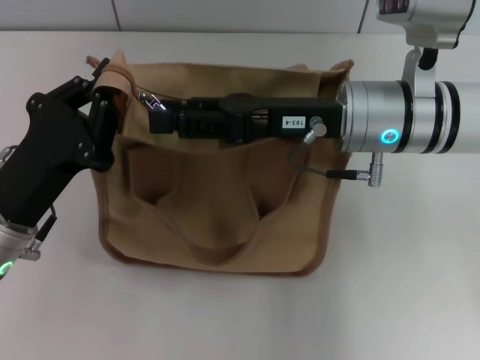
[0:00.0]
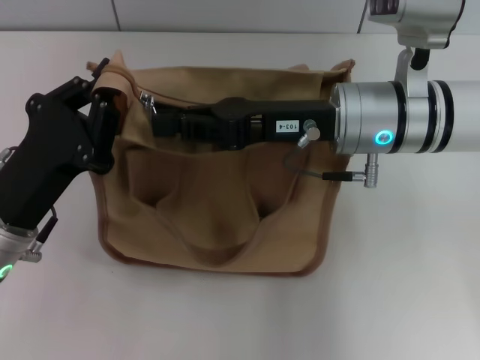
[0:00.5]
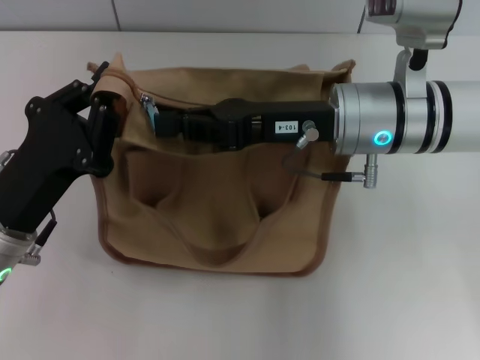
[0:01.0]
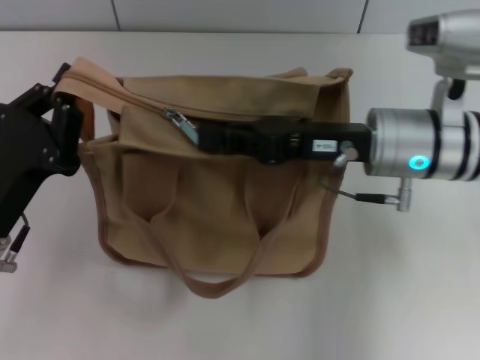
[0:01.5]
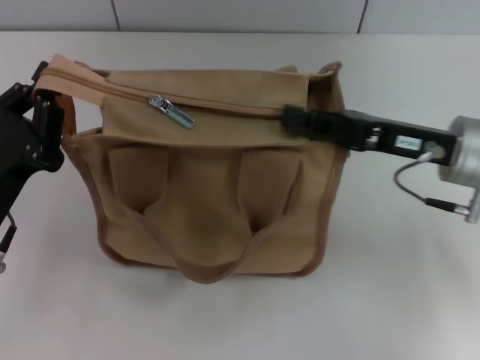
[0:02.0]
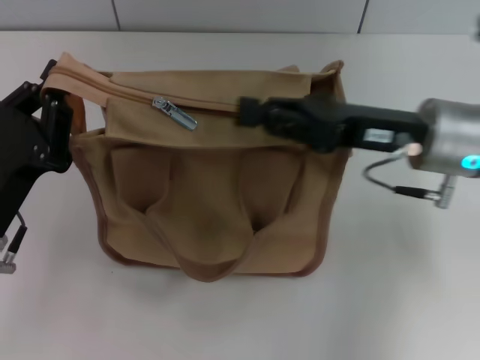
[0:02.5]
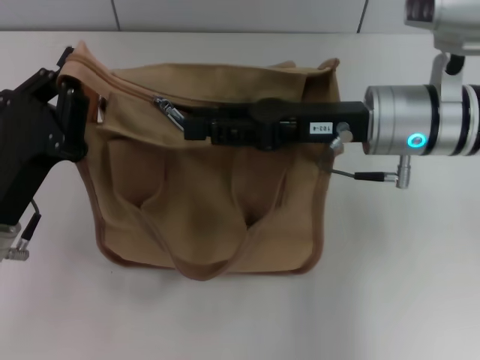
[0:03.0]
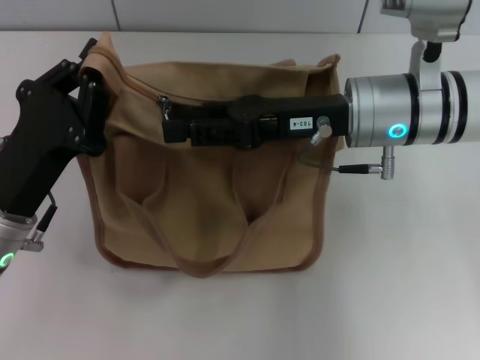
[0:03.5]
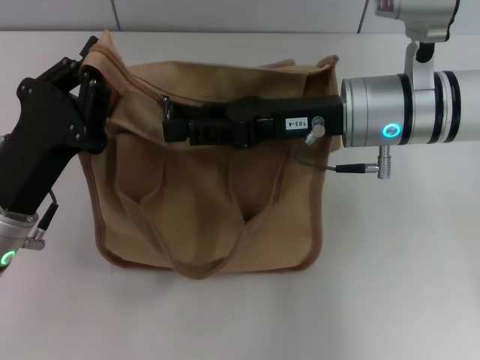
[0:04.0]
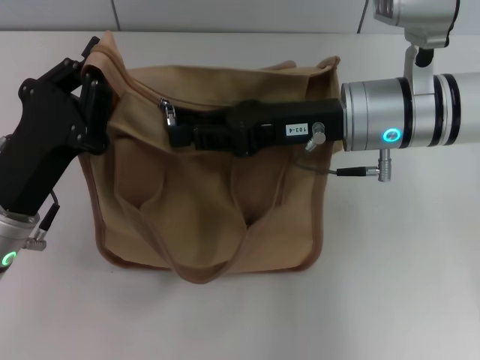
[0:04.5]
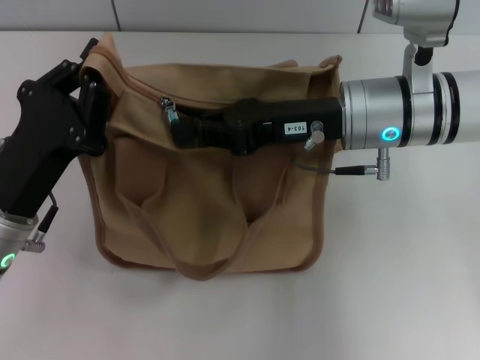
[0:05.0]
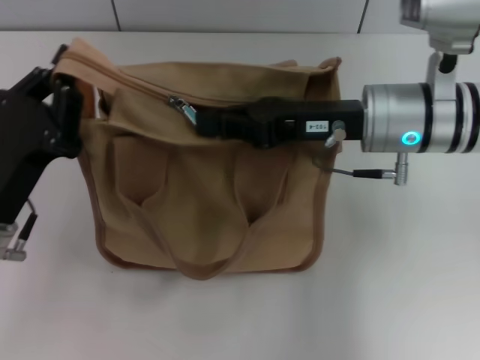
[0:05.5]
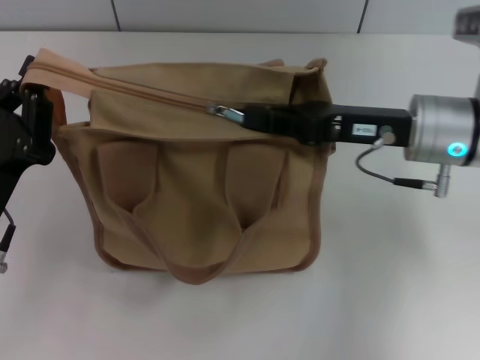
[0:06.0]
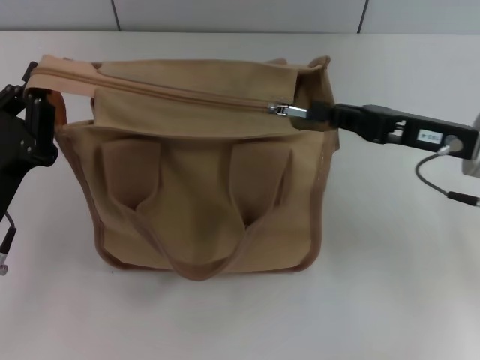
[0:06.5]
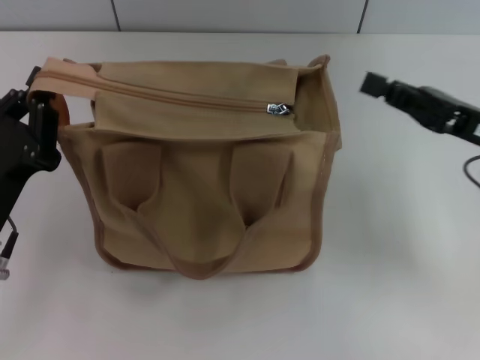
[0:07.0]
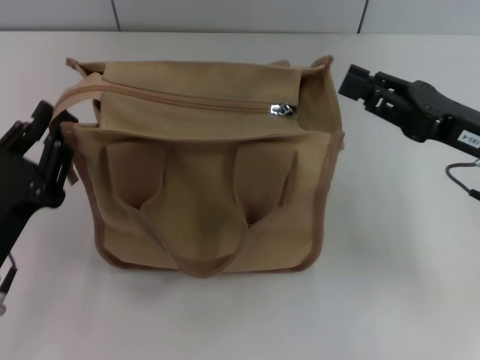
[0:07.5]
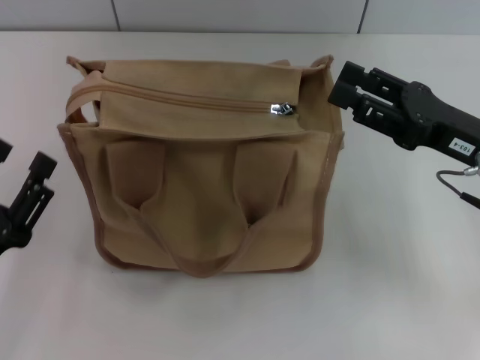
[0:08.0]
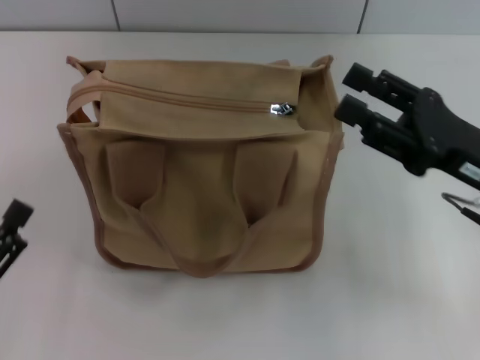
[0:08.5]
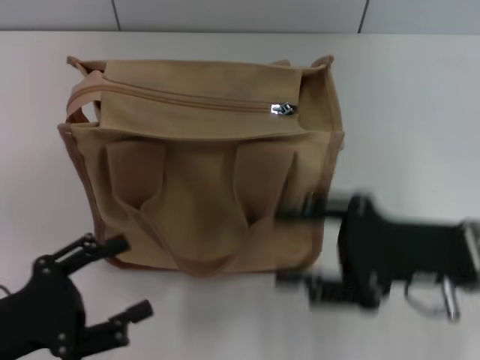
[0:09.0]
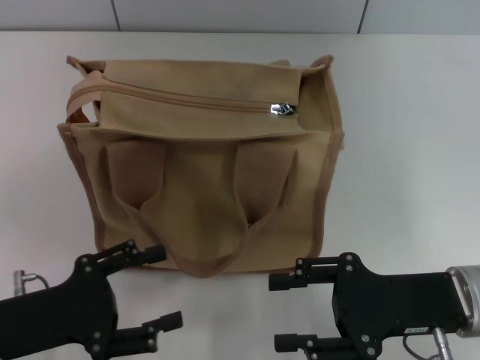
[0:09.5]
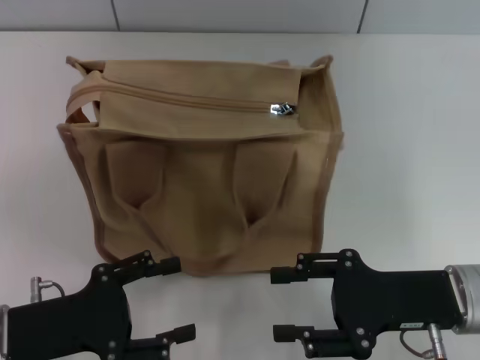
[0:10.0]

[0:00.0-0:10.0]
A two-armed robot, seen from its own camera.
Step, 0:00.0 to 0:06.5: Pull up the zipper with your right hand.
Step, 0:07.0 to 0:07.5: Grab the zipper with your left hand.
0:00.0 to 0:02.0: The right gripper is displaced to the right by about 10 cm, and closes.
0:02.0 to 0:04.0: The right gripper travels to the left by roughly 10 cm, and opens up.
0:04.0 to 0:06.0: The right gripper travels to the right by some 5 cm, and closes up.
0:06.0 to 0:08.0: The left gripper is displaced backward by some 5 cm, and opens. The right gripper shifts some 5 cm to the right, and opens its fingers.
0:08.0 to 0:10.0: The right gripper moves backward and downward, roughly 10 cm.
